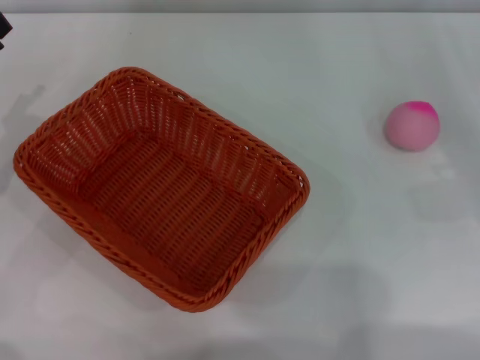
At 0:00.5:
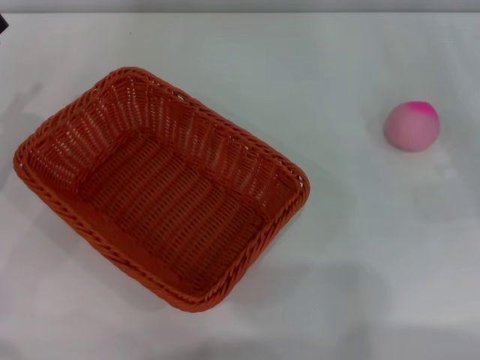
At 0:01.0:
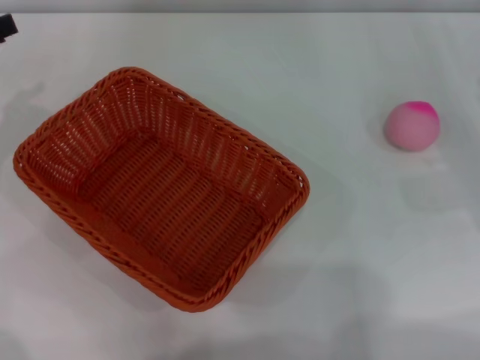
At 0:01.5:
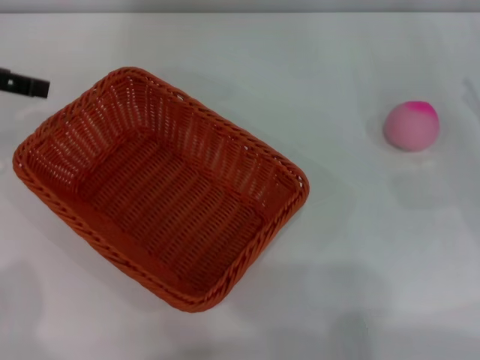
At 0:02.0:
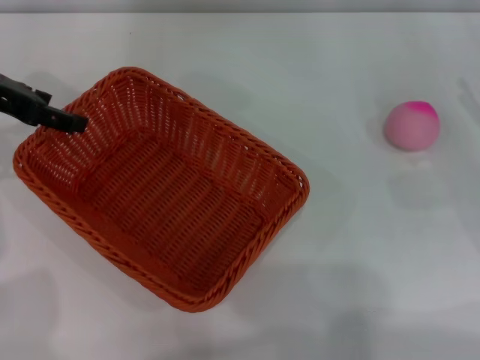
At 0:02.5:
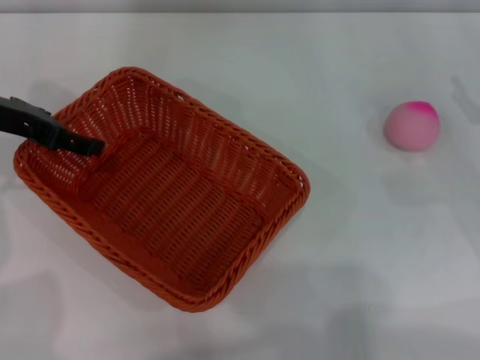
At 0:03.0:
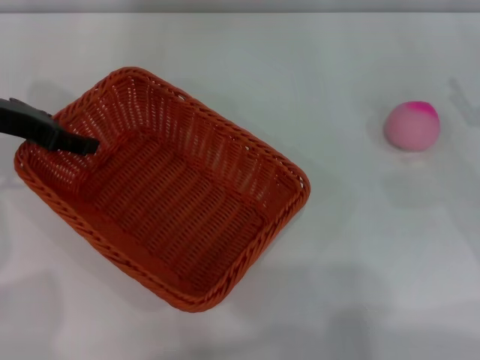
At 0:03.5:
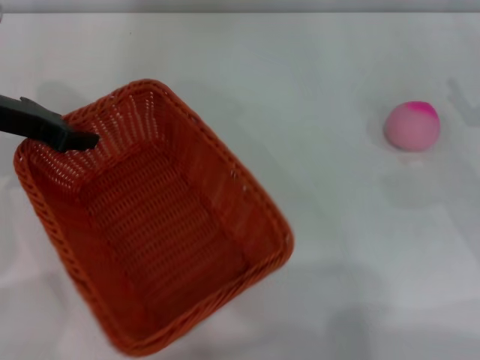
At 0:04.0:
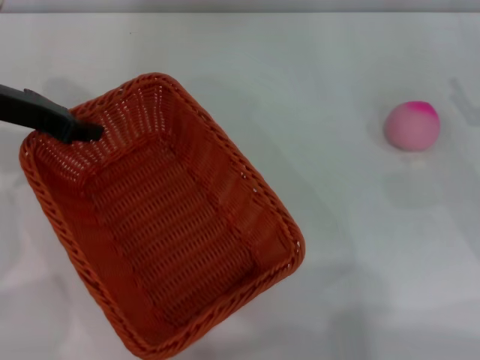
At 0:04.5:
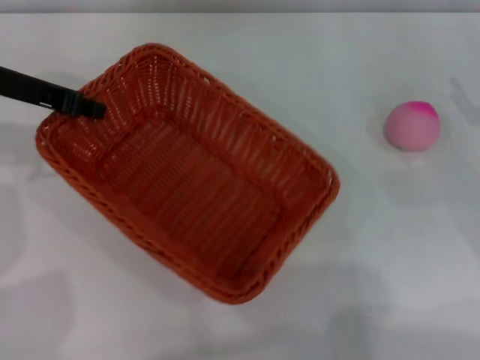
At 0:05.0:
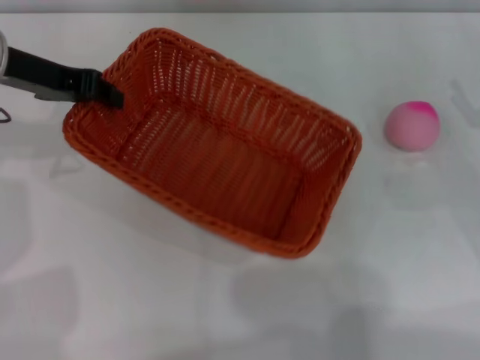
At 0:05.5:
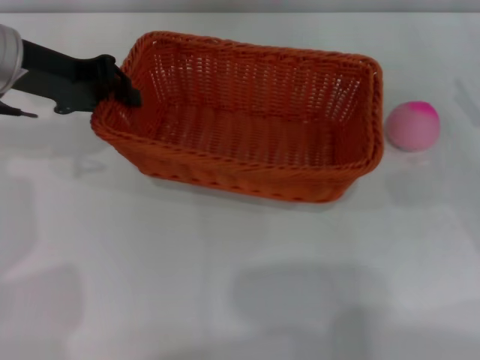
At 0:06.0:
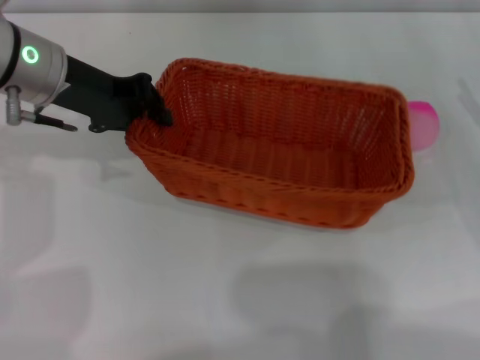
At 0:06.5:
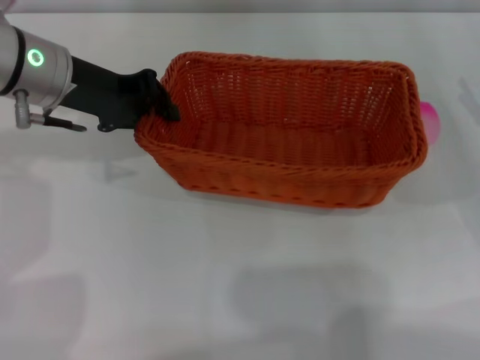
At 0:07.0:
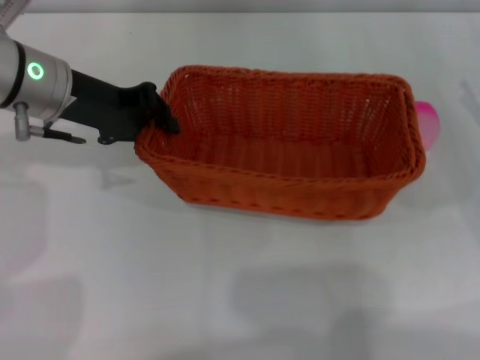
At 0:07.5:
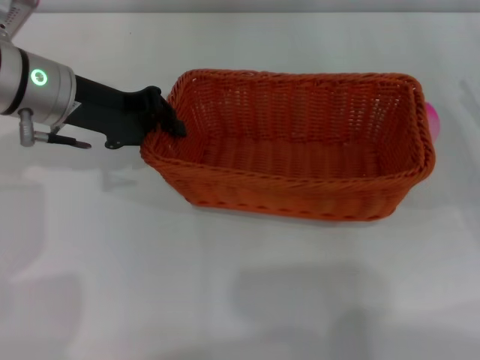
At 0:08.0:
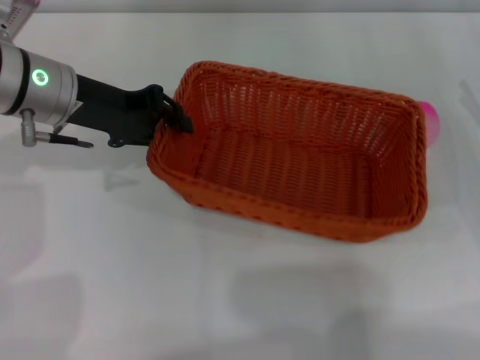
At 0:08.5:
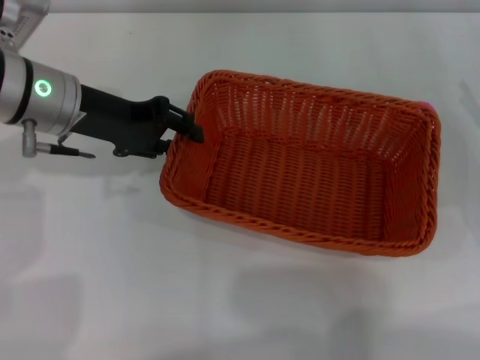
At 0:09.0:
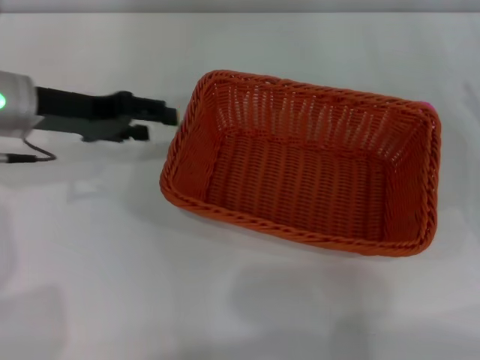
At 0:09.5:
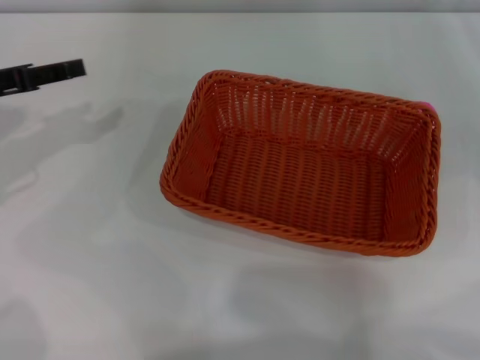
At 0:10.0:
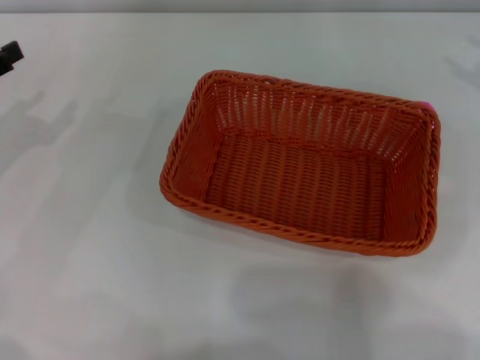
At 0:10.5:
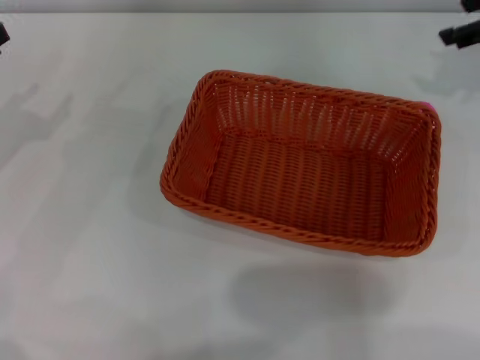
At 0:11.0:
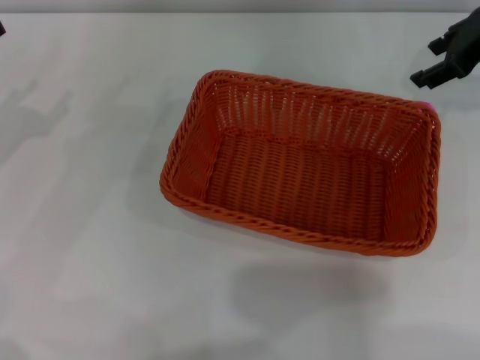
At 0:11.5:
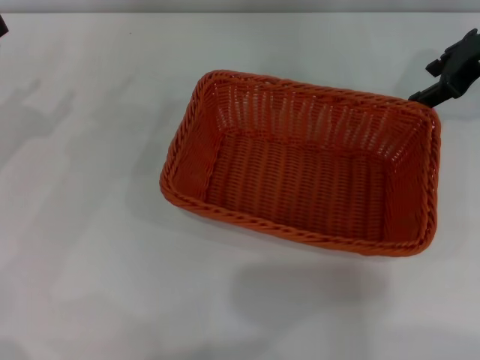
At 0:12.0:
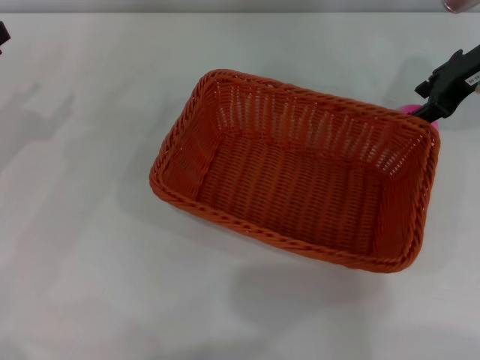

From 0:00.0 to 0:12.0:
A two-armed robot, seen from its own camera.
Step, from 0:00.0 to 0:04.0: Pick up the light basket with the left gripper.
Step, from 0:04.5 to 0:09.0: Place the light basket in the center of view with the right gripper.
From 0:00.0 to 0:02.0: The left gripper moves upward, forward and to the right, approximately 15 cm.
From 0:02.0 to 0:04.0: The left gripper closes its fingers.
From 0:04.0 to 0:06.0: The left gripper travels to the right by roughly 5 cm.
From 0:06.0 to 0:08.0: The grippers stay close to where they were, moving slightly.
From 0:08.0 to 0:10.0: The left gripper is displaced to the left by some 15 cm, and opens up. Meanwhile the right gripper moves upward and forward, about 15 cm.
From 0:10.0 to 0:12.0: The right gripper goes roughly 15 cm to the left.

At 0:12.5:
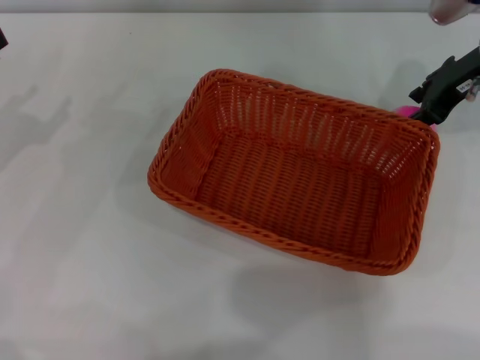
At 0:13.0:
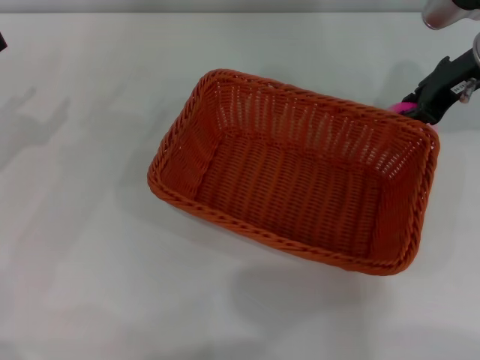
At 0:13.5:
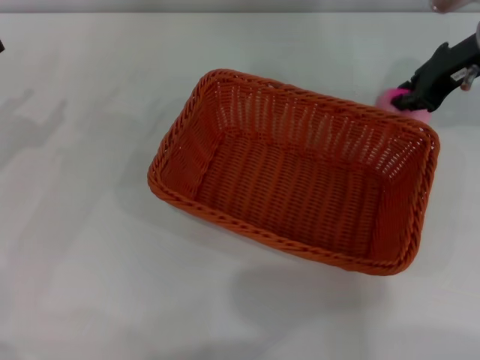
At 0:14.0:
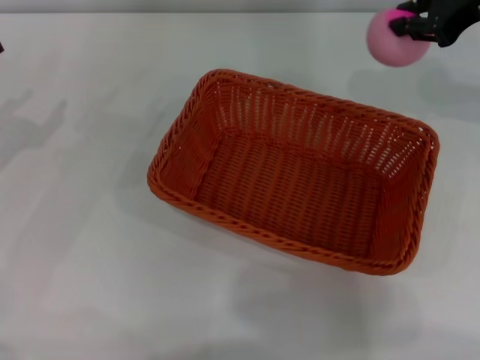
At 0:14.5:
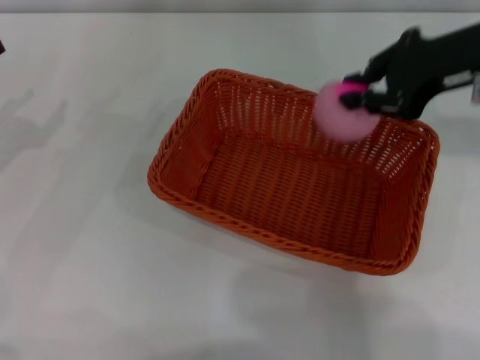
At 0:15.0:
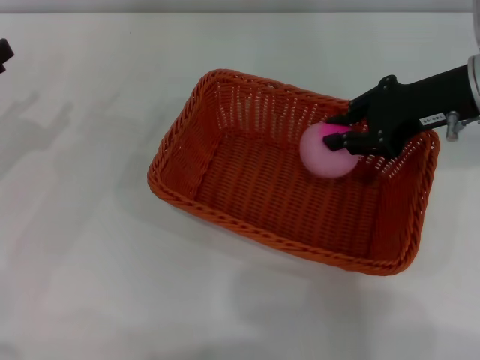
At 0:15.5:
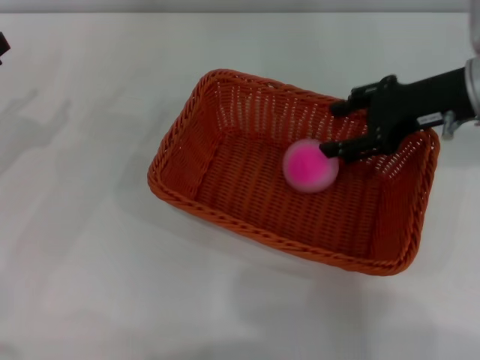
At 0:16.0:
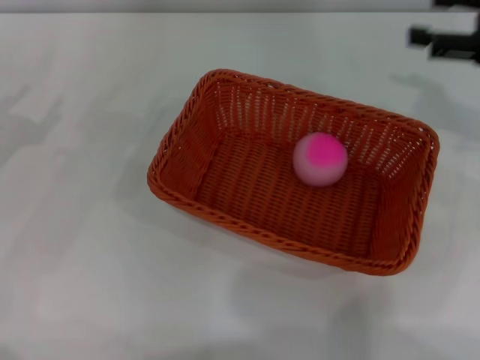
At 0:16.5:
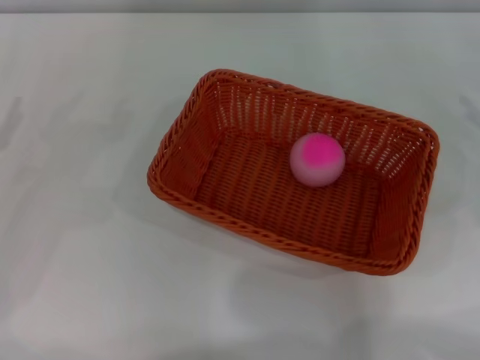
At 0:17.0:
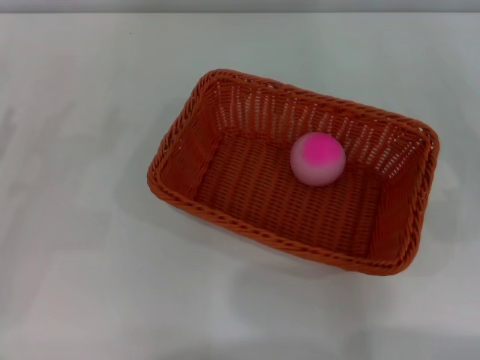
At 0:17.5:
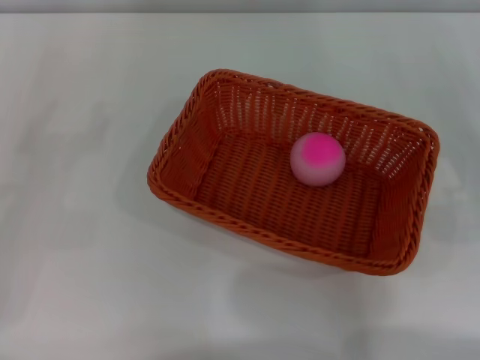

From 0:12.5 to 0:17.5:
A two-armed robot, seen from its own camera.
From 0:12.5 to 0:15.0: The right gripper shifts some 5 cm backward, travels upward and back again, approximately 10 cm each way, and closes.
From 0:15.0 to 0:17.5: The right gripper travels to the right, backward and downward by roughly 20 cm, and opens its fingers; the left gripper shifts by approximately 5 cm.
